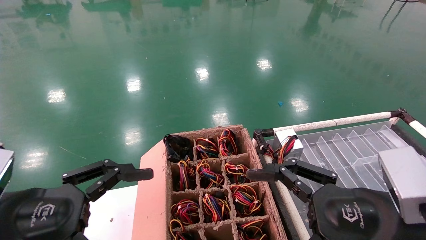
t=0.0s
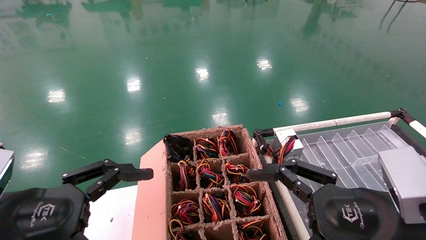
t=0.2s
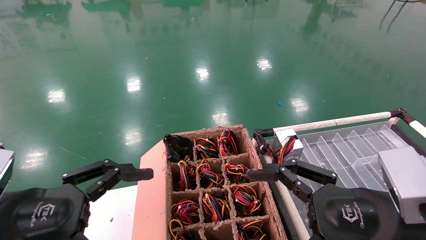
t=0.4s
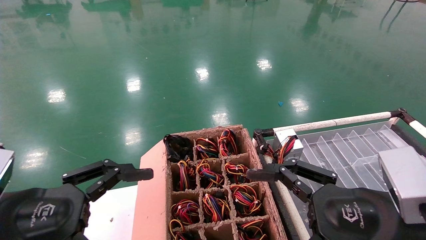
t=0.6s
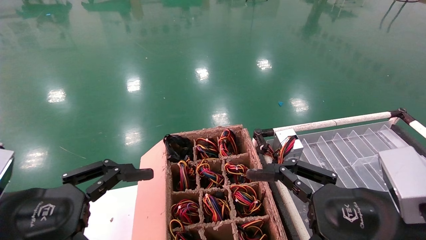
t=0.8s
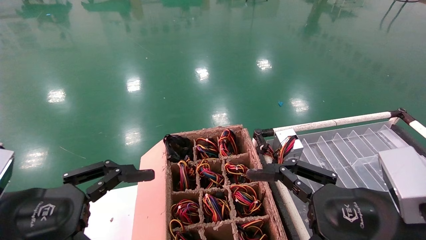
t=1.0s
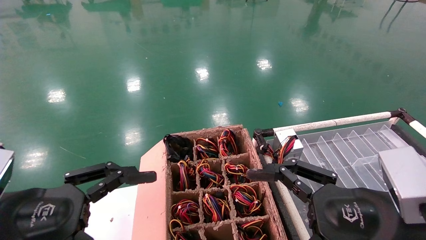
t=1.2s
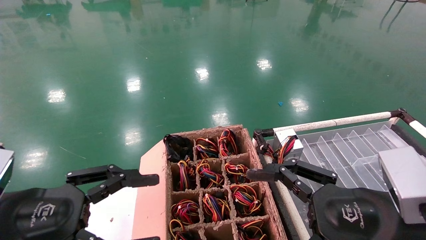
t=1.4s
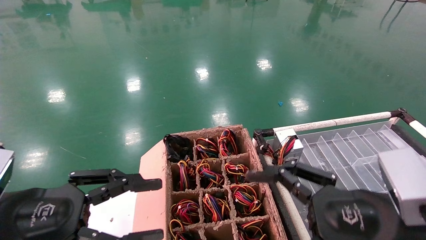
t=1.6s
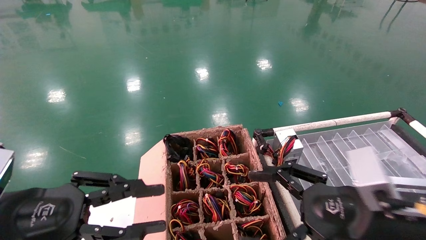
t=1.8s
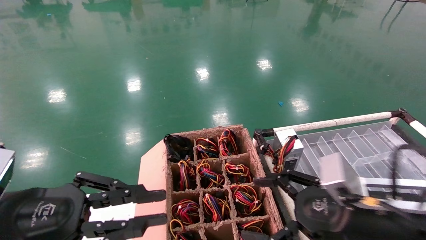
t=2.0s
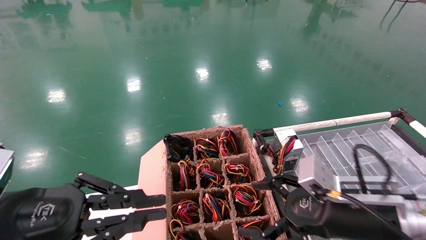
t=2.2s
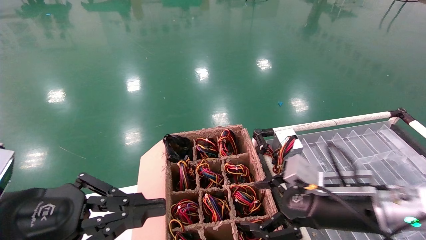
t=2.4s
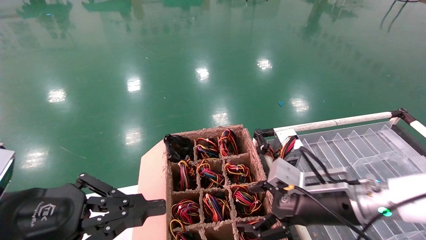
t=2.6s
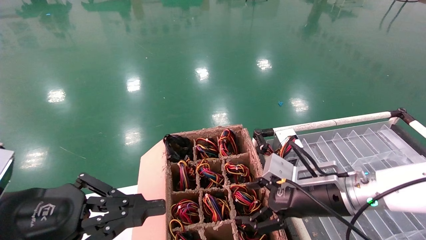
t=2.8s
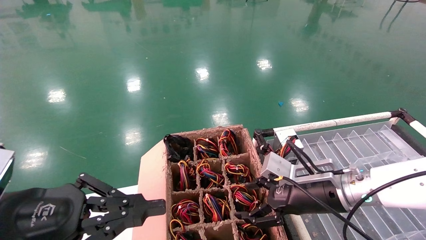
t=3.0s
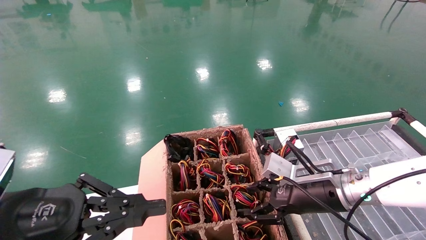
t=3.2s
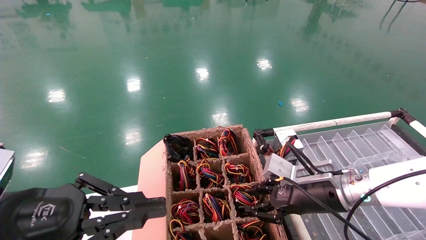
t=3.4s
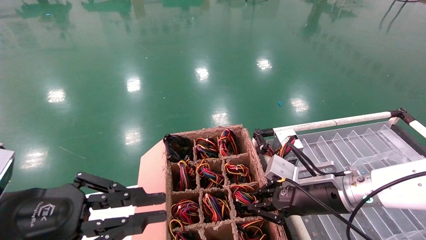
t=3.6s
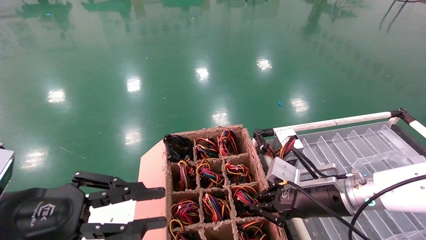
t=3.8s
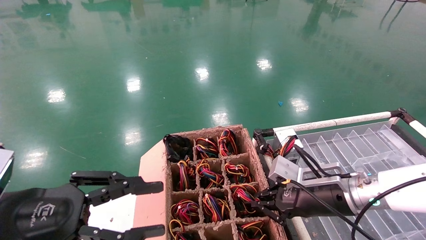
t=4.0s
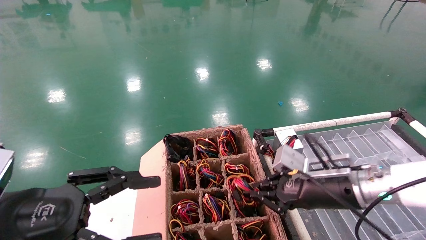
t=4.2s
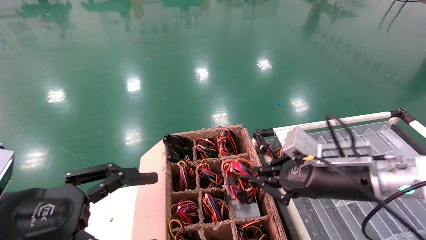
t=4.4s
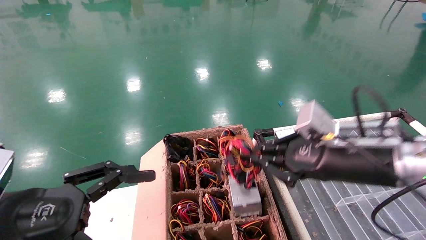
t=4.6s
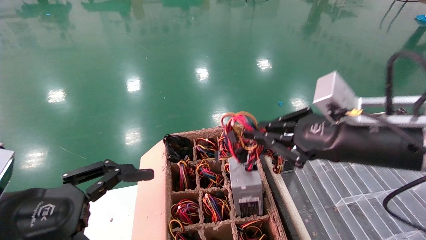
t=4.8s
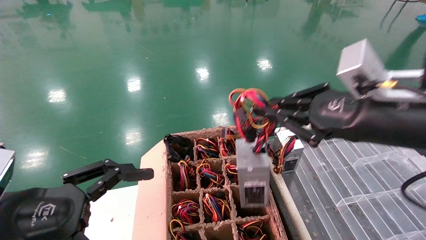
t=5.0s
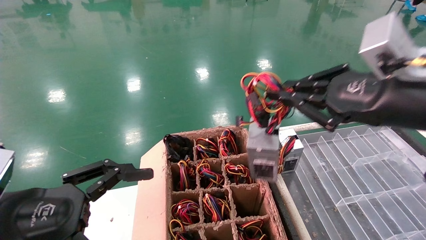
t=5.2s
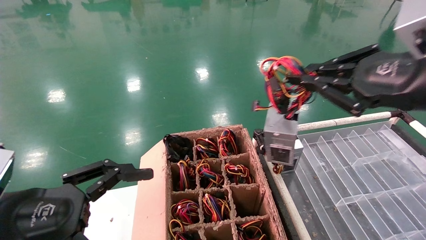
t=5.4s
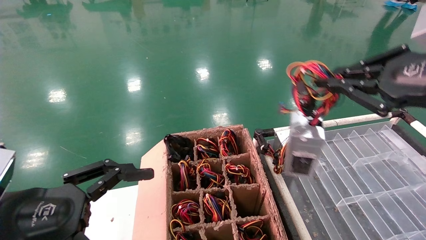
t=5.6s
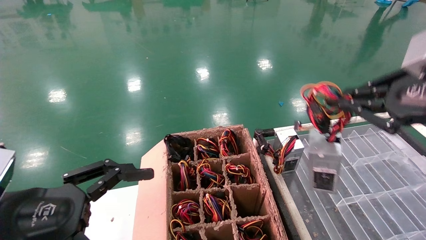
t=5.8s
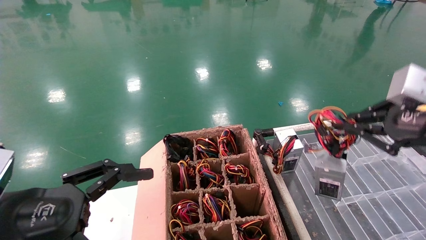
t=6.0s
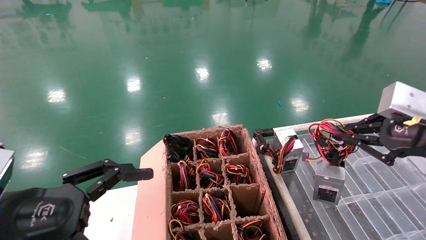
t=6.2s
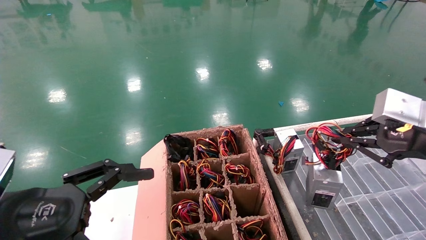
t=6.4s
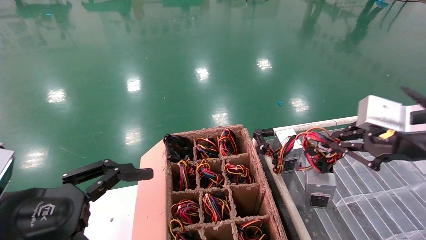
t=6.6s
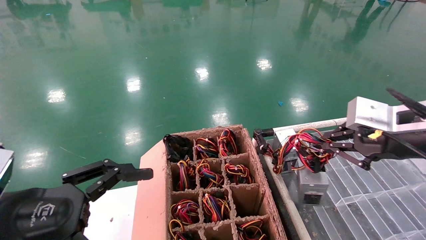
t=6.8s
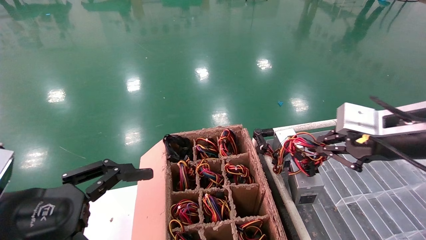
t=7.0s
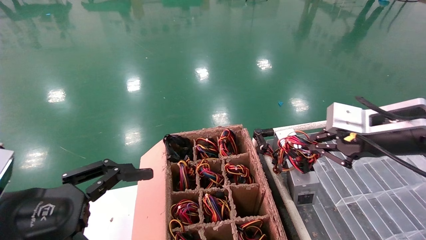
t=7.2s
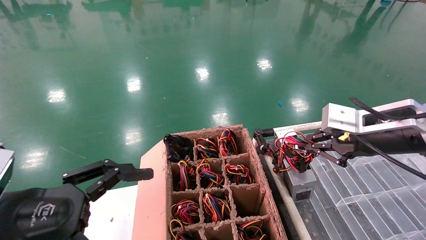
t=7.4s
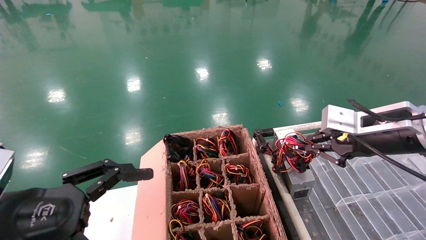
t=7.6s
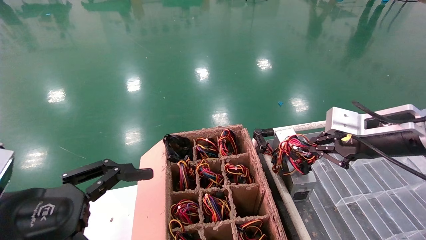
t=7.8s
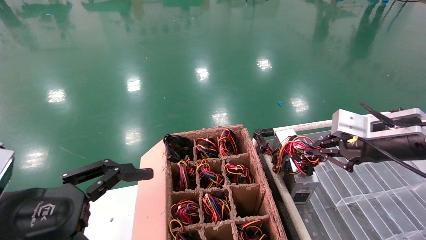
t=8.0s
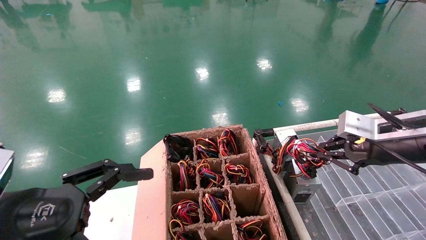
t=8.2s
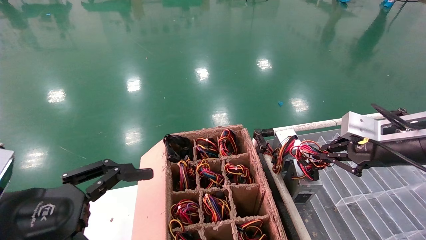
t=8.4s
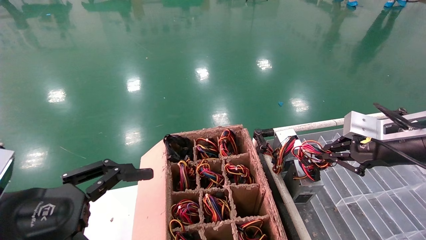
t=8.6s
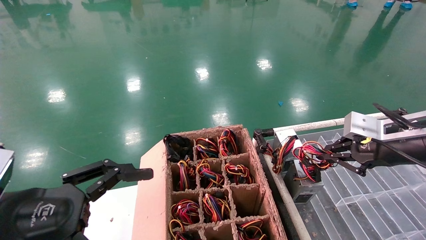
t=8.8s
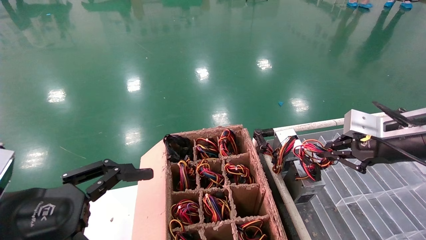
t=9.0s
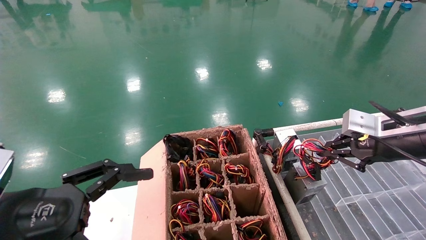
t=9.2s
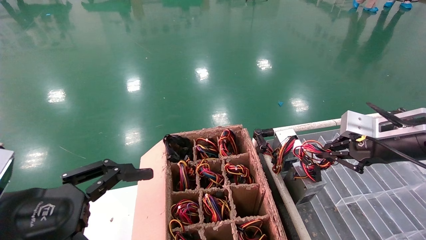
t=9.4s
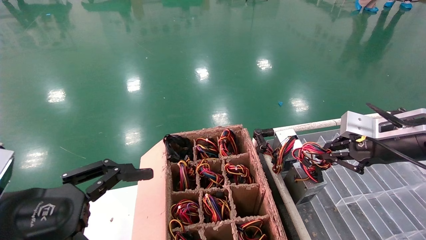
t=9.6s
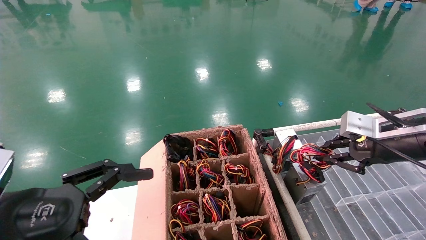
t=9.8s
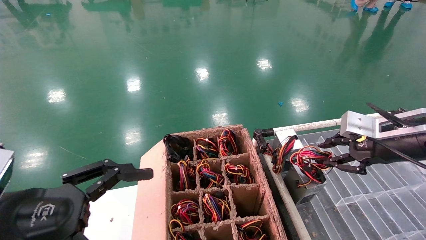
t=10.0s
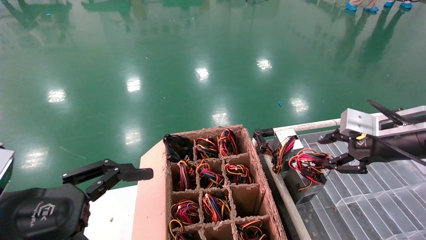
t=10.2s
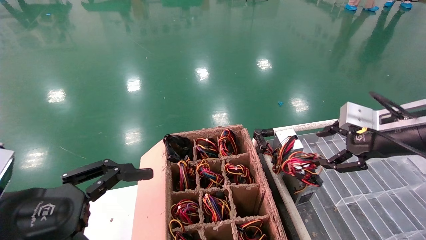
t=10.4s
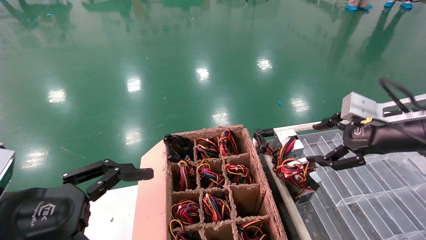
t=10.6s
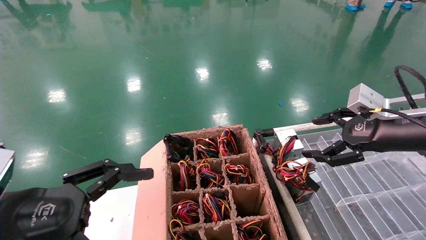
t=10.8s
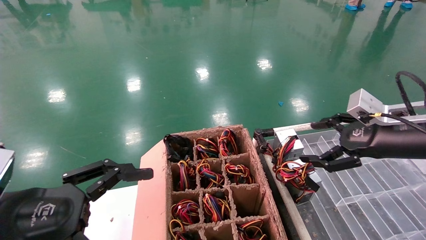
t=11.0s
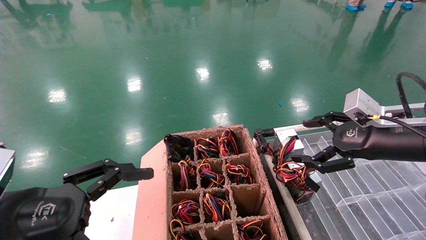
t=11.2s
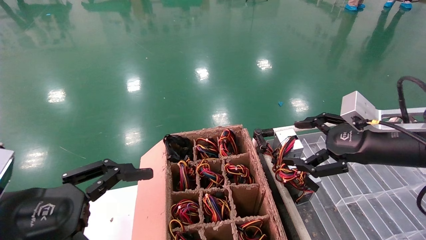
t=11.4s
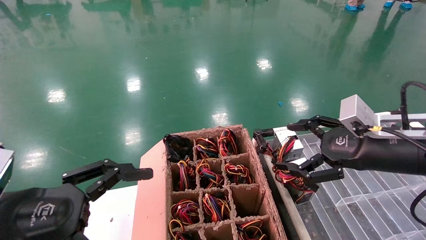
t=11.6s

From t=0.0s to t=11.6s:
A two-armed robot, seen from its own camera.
Step, from t=1.2s to t=3.8s: Grab and lift the power supply from the large box.
Step, from t=4.0s to t=9.6s: Place the power supply on the operating table.
From t=0.0s to t=1.4s: Neither gripper changes place.
From t=1.4s to t=2.8s: The left gripper closes its fingers; the right gripper heads forward, covering some 15 cm.
From t=2.8s to t=4.4s: The right gripper travels upward by some 5 cm, and closes up; the left gripper opens its fingers.
From t=4.4s to t=5.8s: The right gripper heads upward, to the right and backward, covering about 20 cm.
From t=5.8s to t=7.2s: The right gripper shifts approximately 10 cm forward.
From t=7.2s to t=8.8s: The right gripper heads to the right, covering approximately 5 cm.
From t=8.8s to t=10.2s: The right gripper opens.
From t=10.2s to t=11.6s: The right gripper shifts by approximately 5 cm, and opens its fingers.
